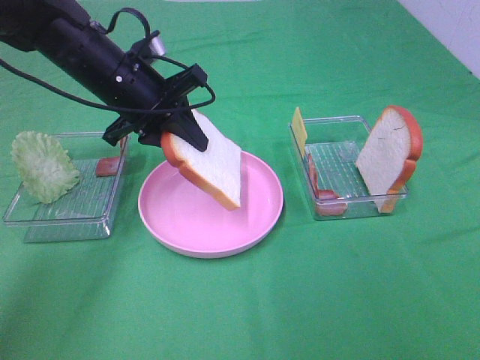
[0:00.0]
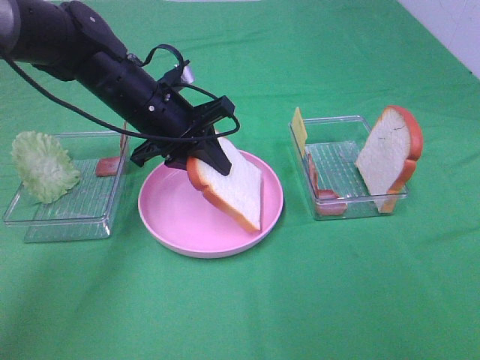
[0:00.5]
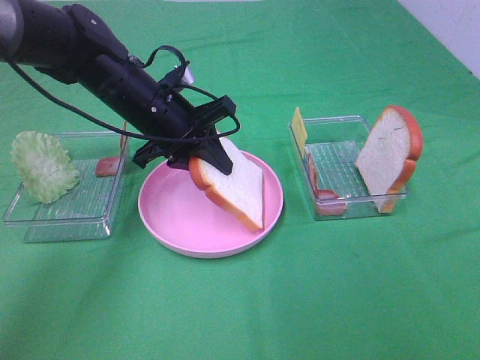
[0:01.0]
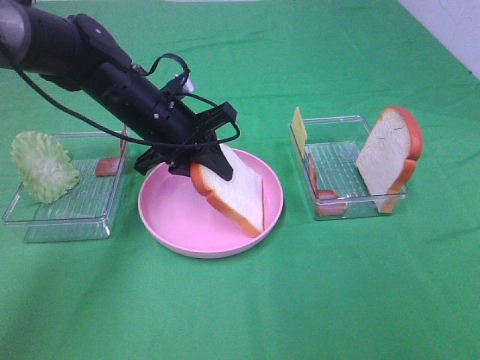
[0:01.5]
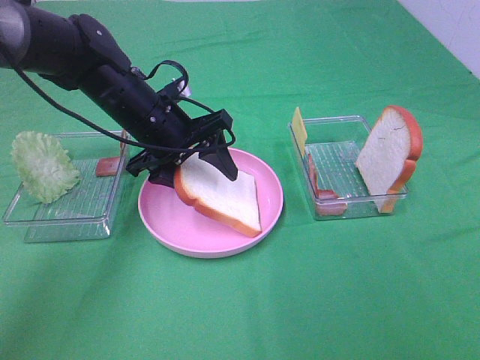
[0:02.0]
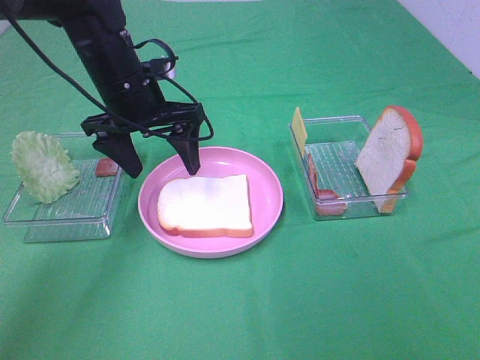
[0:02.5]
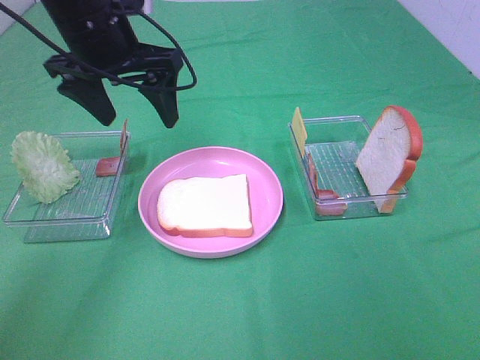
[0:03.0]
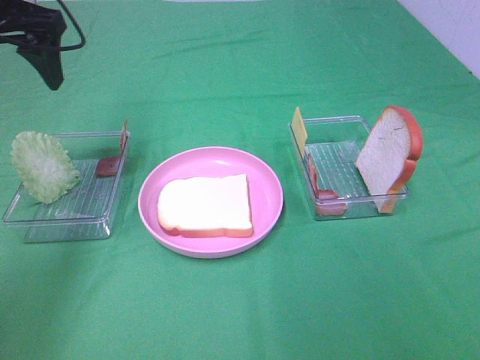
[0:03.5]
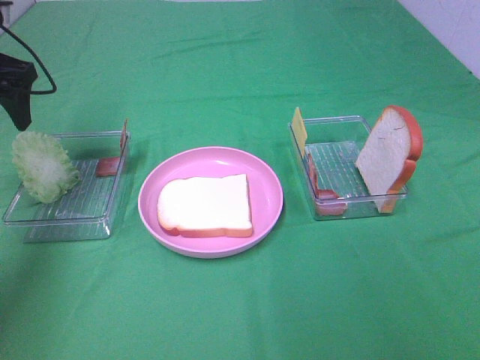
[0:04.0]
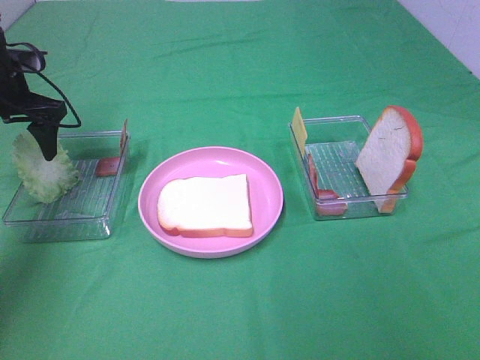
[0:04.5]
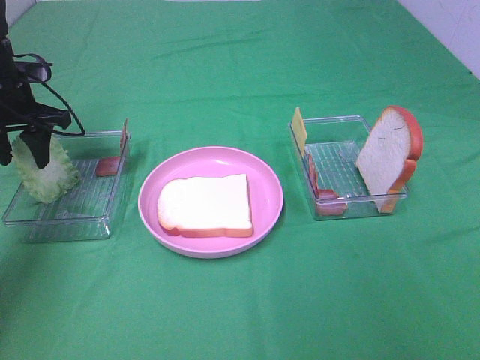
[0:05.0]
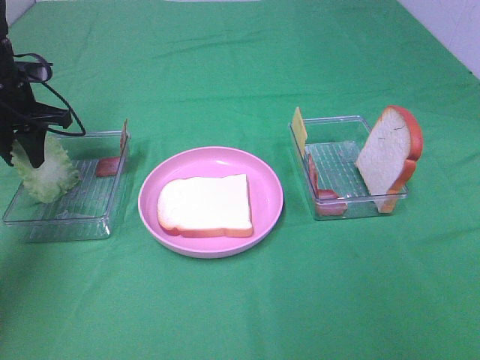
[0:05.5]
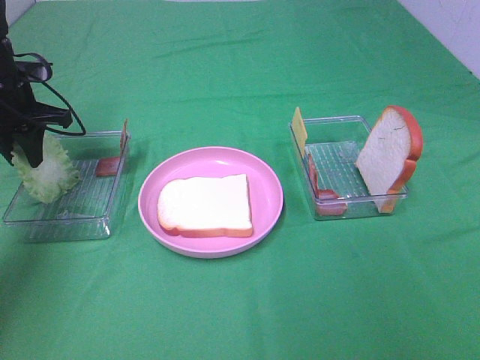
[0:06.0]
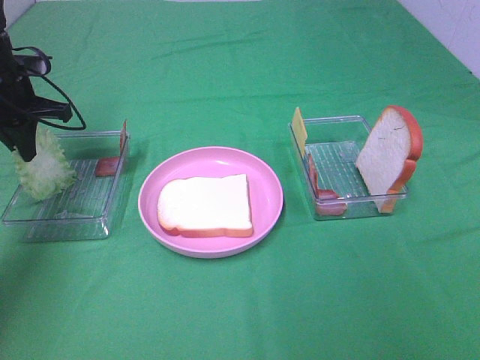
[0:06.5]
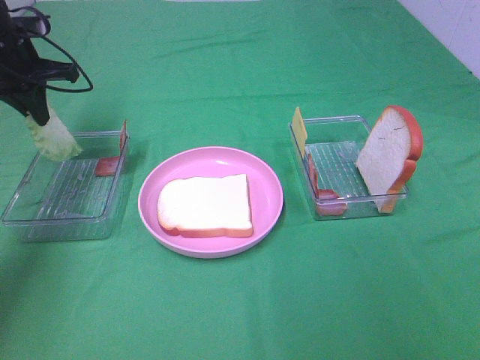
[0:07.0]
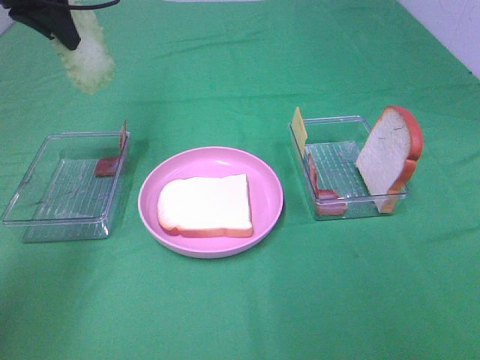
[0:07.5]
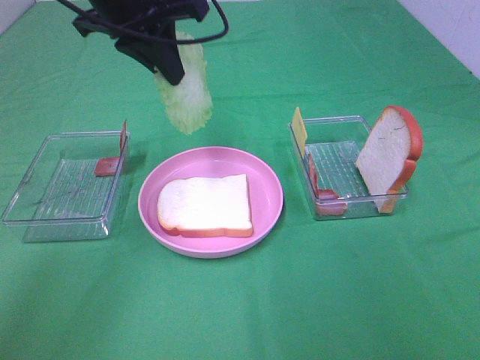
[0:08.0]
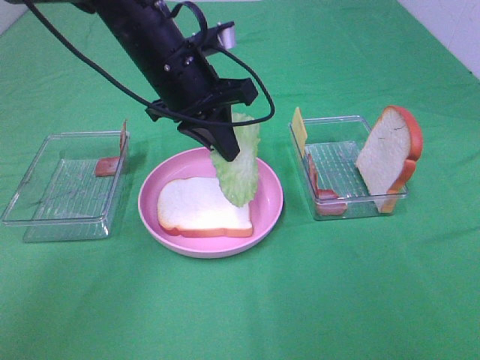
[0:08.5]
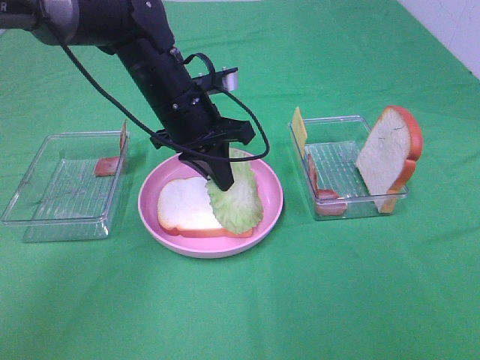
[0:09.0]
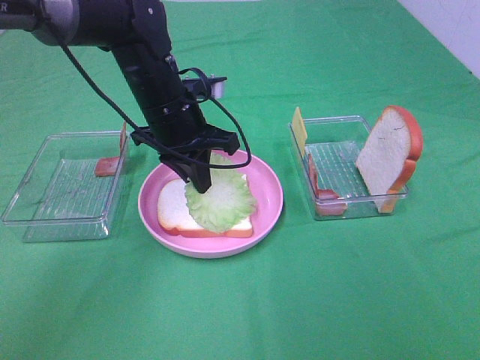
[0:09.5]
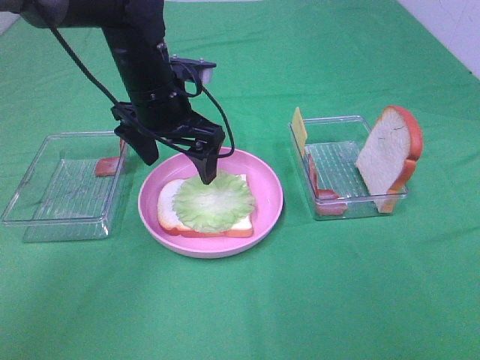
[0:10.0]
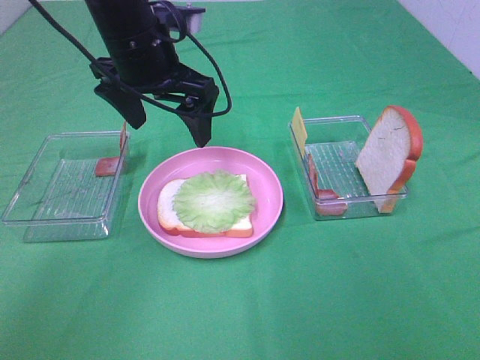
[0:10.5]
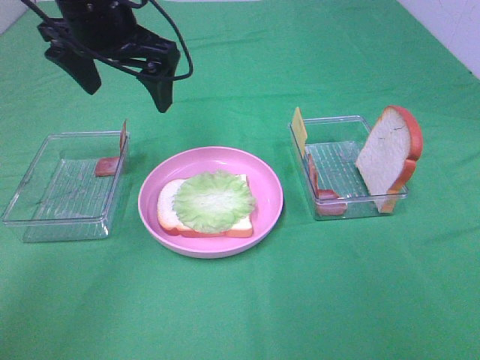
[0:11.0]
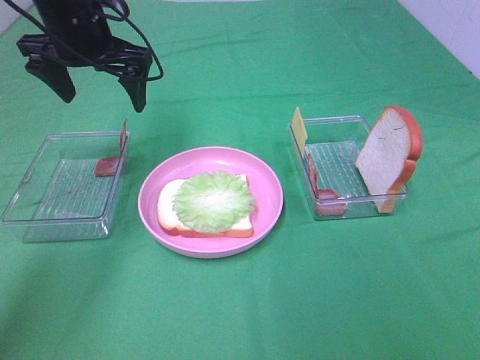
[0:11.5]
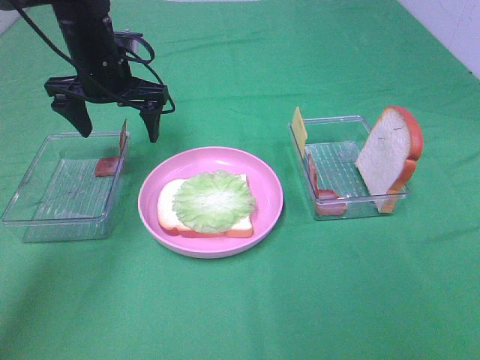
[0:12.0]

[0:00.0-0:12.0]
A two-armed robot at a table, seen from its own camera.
Task of the whole recording: Make sandwiches.
Step, 0:00.0 to 0:02.5: Left hand:place the bread slice on the plate.
Step, 0:03.0 to 0:06.0: Left hand:grab the lettuce slice.
Step, 0:06.5 to 0:10.0: Left hand:place the lettuce slice on the bread slice.
0:00.0 to 0:02.0: The left gripper opens.
0:02.0 to 0:04.0: The left gripper moves to the left and upward, some 20 cm.
0:04.0 to 0:06.0: The left gripper shifts some 10 cm downward, and closes its fingers.
0:06.0 to 0:08.0: The left gripper travels to the right and upward by approximately 25 cm.
0:08.0 to 0:10.0: The left gripper moves downward, about 10 cm, and opens up.
0:10.0 to 0:12.0: The left gripper moves to the left and forward, some 10 cm, and goes upward and returns, about 10 cm each way.

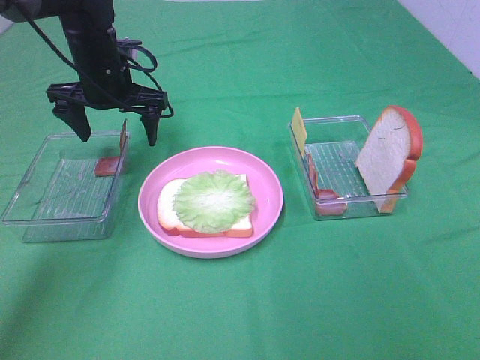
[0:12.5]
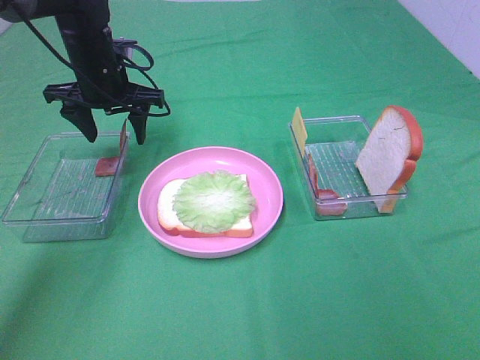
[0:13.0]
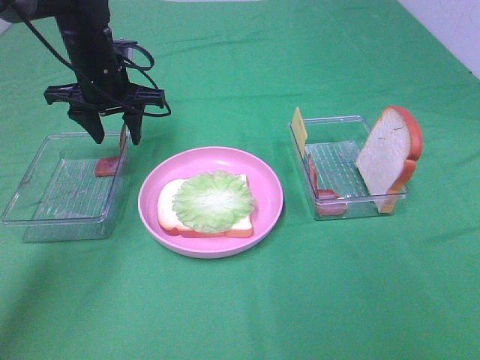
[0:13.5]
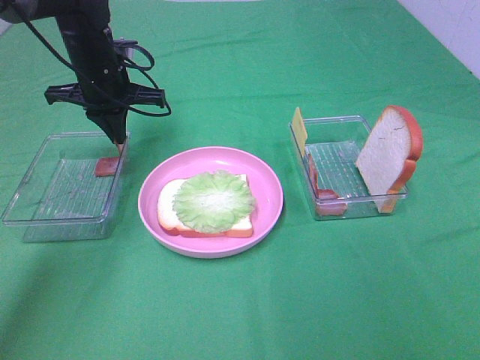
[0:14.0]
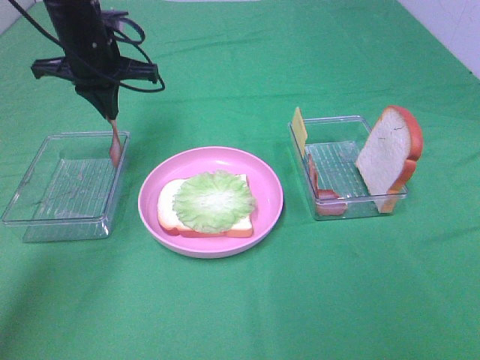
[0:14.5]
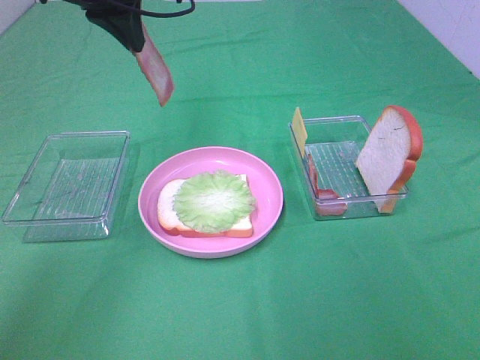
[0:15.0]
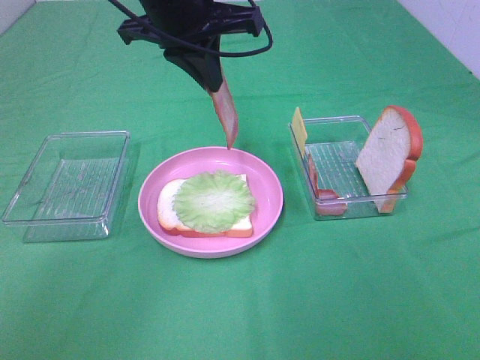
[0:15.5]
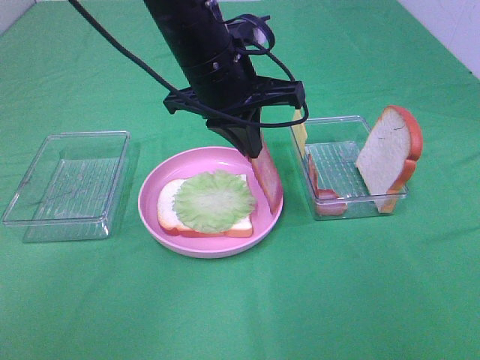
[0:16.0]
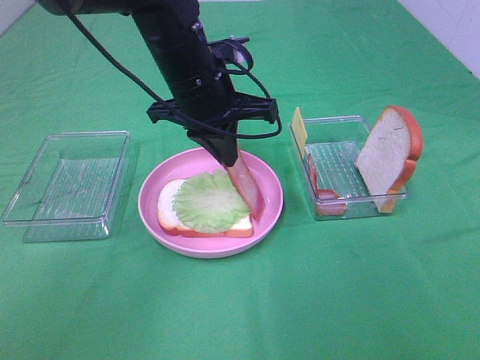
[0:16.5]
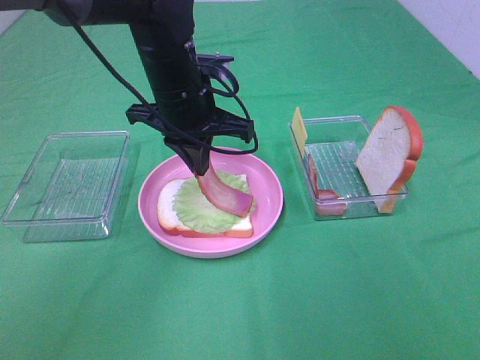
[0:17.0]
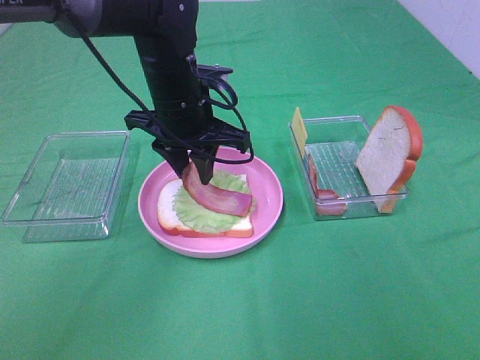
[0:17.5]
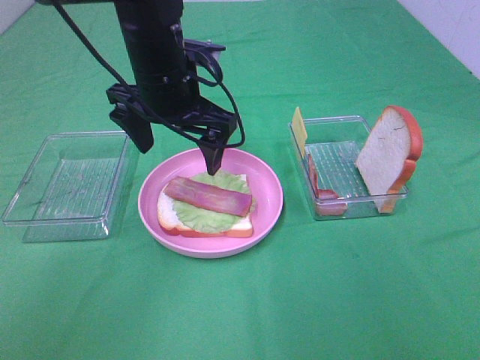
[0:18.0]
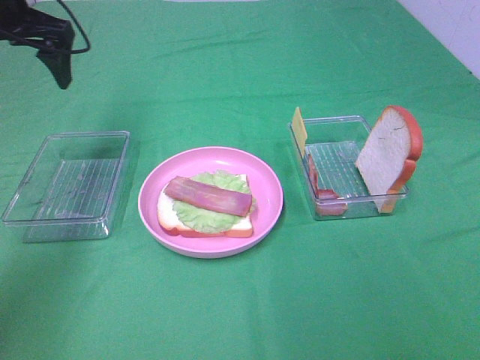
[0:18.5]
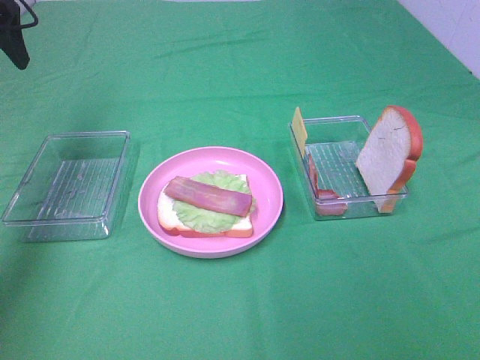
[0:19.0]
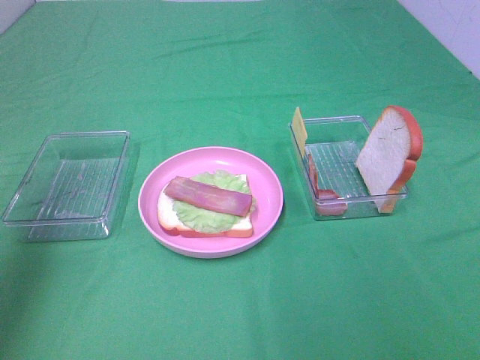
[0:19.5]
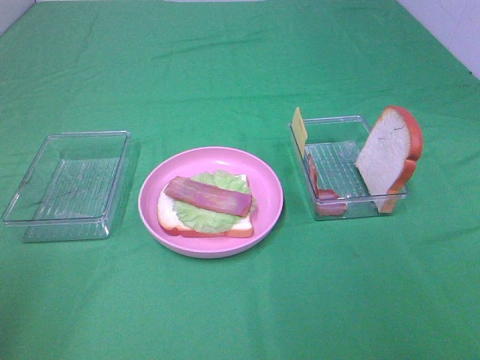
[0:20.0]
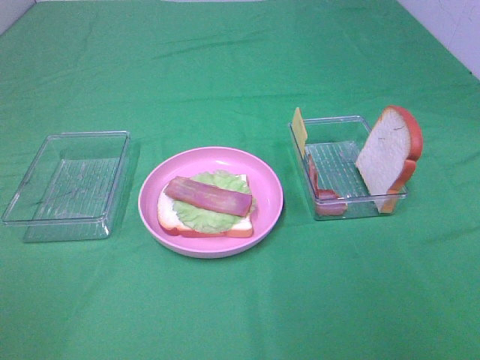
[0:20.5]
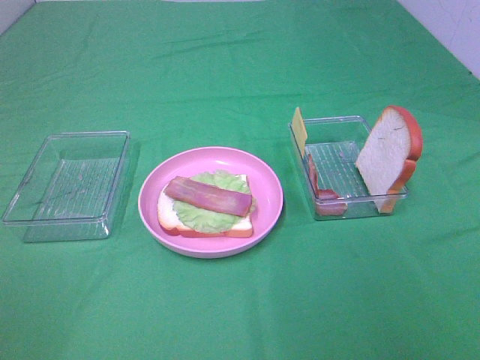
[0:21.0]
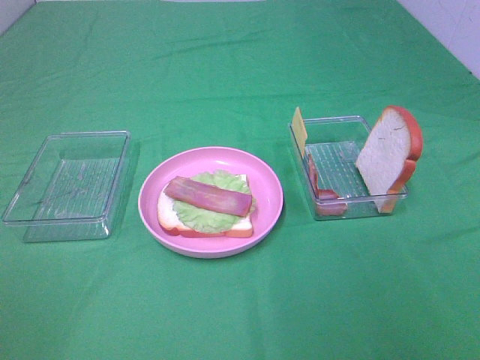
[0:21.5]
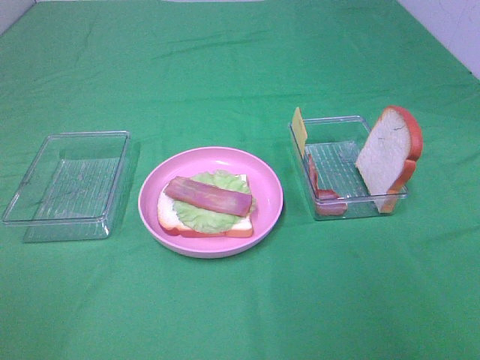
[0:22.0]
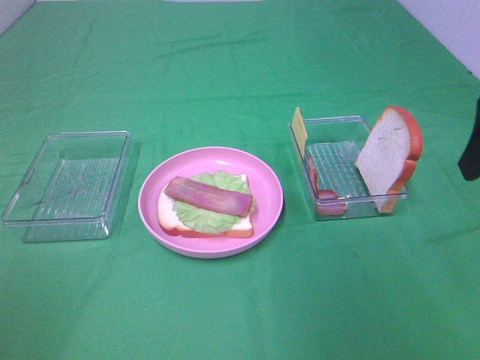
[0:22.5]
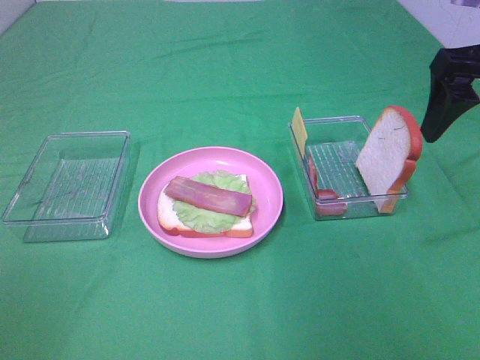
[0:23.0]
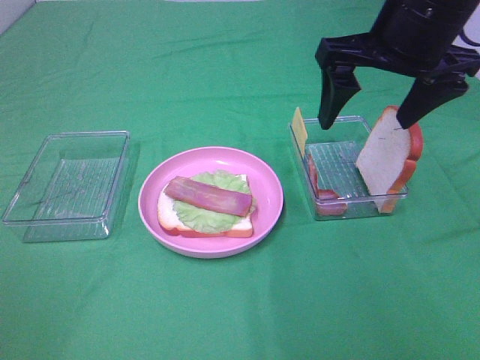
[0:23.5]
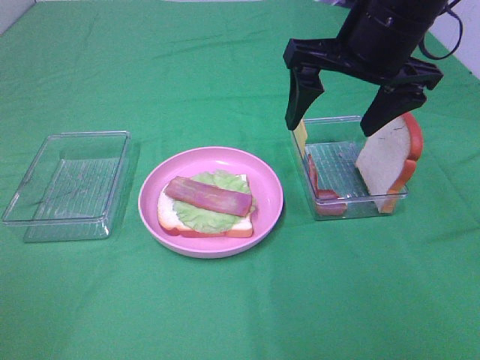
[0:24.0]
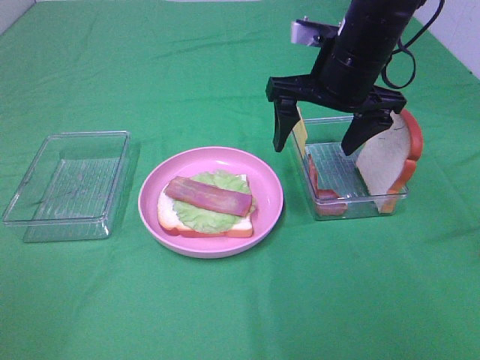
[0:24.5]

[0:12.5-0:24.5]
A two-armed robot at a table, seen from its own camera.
Task of the whole recording: Make sandwiches.
Step, 0:12.5 to 0:14.5: Left hand:grab the bacon.
Step, 0:15.0 to 0:17.5: Left hand:place bacon on lettuce slice.
0:12.5 to 0:14.5: The left gripper closes its fingers.
0:14.5 to 0:16.5: The left gripper is displaced to the right and backward by some 15 cm.
0:16.5 to 0:18.5: The left gripper goes some 25 cm to the left, and opens up.
0:18.5 to 0:20.5: The left gripper is displaced backward by approximately 40 cm.
0:20.5 to 0:22.5: The right gripper shifts about 25 cm forward.
0:22.5 to 0:24.5: The right gripper heads to the left, forward and downward, covering approximately 20 cm.

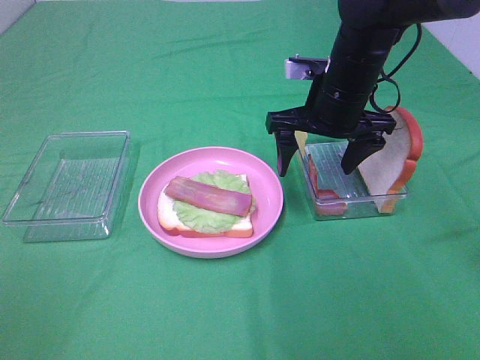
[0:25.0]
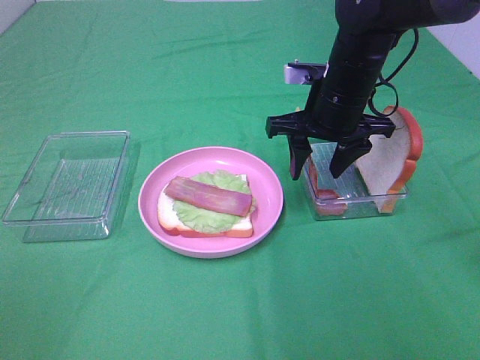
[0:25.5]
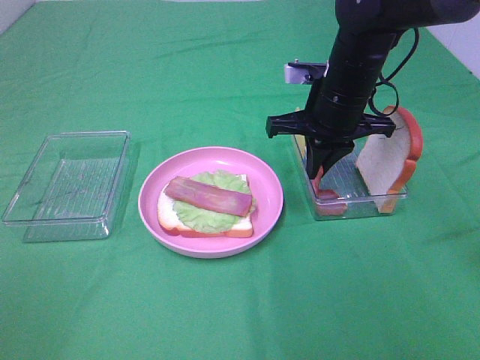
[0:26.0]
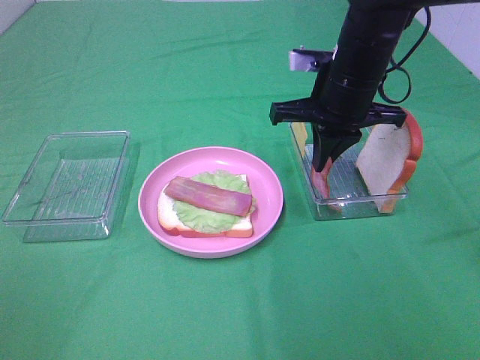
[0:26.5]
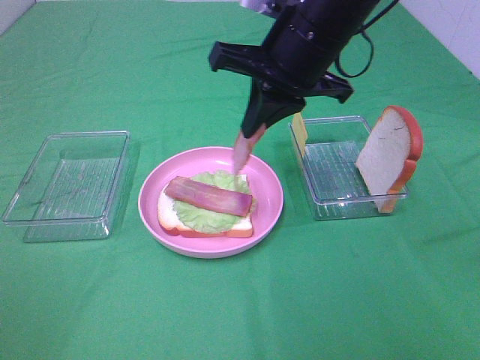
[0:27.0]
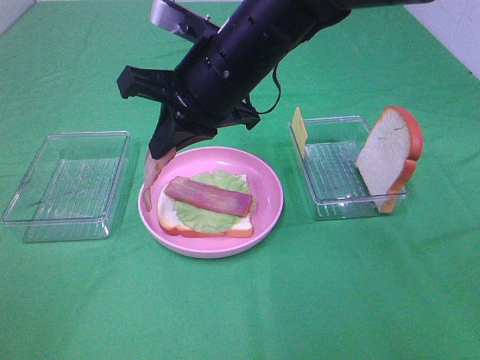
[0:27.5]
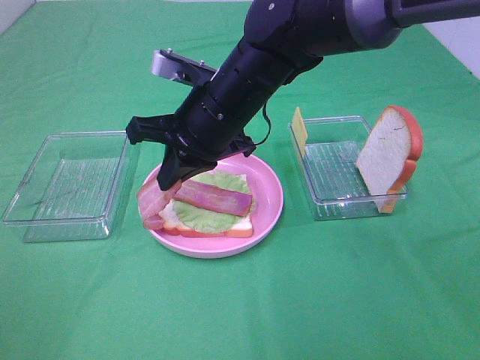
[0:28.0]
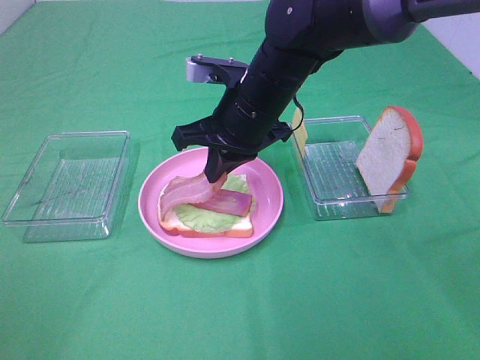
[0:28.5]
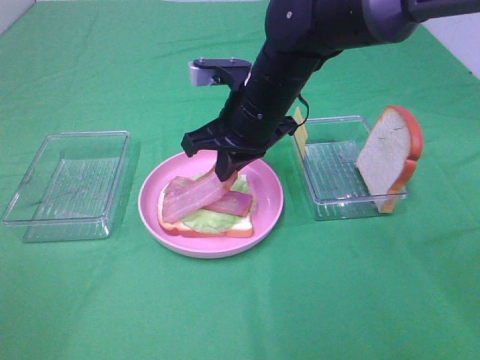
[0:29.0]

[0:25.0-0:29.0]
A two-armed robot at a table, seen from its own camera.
Task of the whole recording: Make sandwiches.
0:25.0 to 0:27.0: The right gripper is displaced upward and to the left by approximately 10 cm, and closes up.
0:27.0 to 0:29.0: The right gripper goes roughly 10 cm downward.
